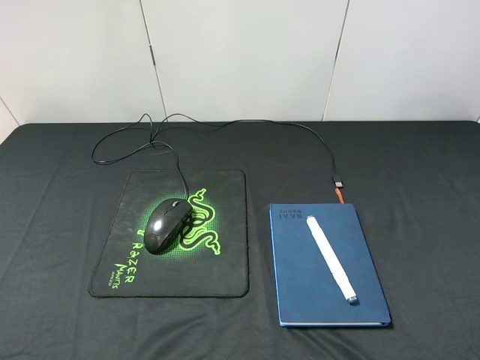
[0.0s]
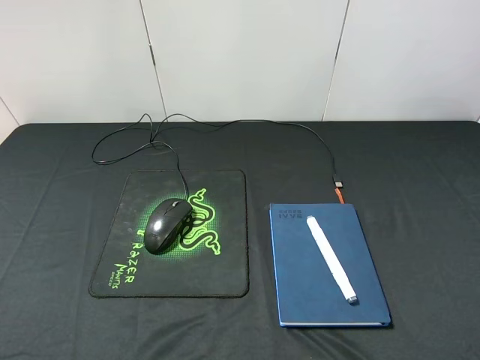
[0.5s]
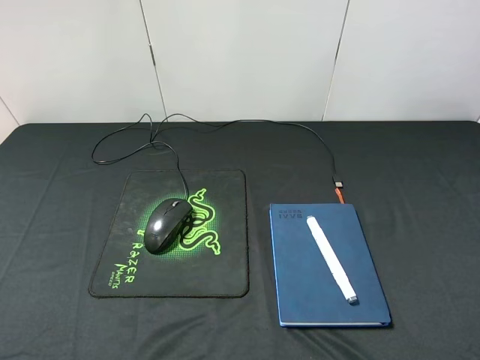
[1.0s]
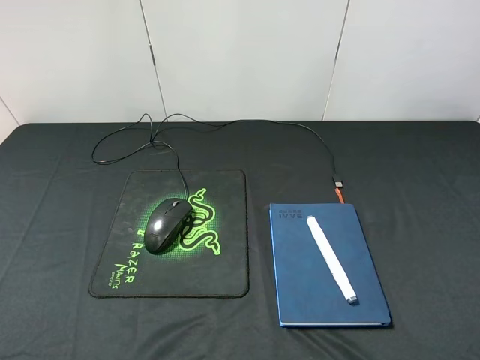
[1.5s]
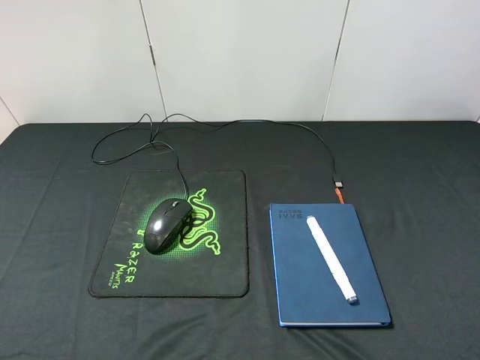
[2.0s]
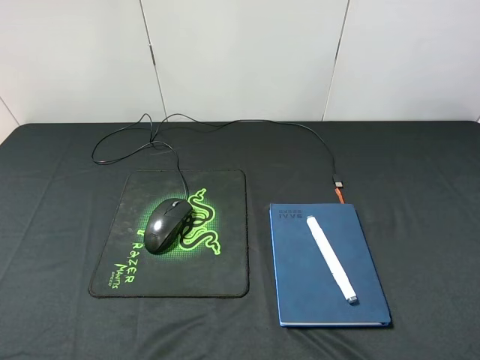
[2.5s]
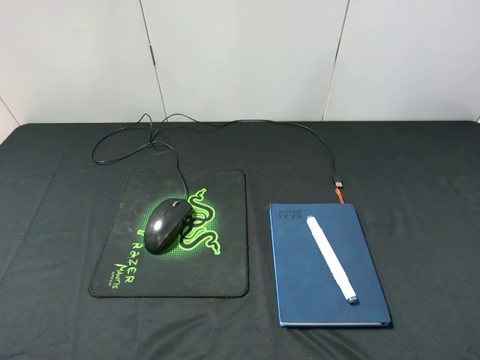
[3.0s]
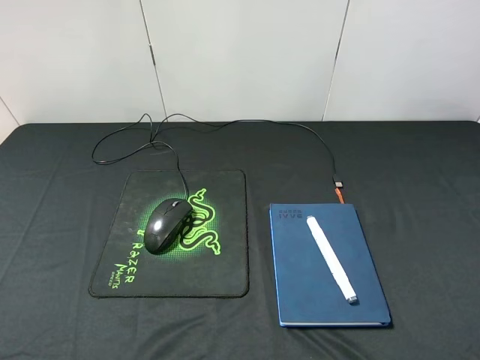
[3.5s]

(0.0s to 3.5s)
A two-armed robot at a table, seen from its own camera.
2.0s - 3.5s: The two grippers keep their place.
